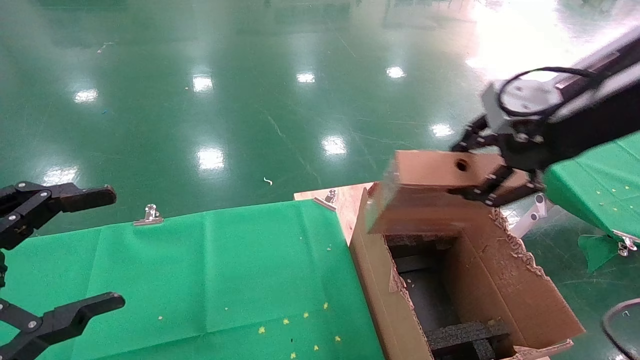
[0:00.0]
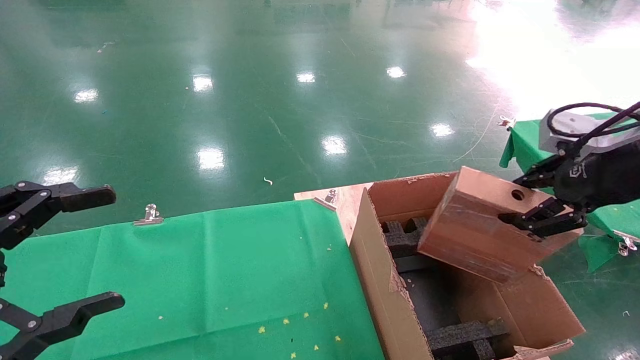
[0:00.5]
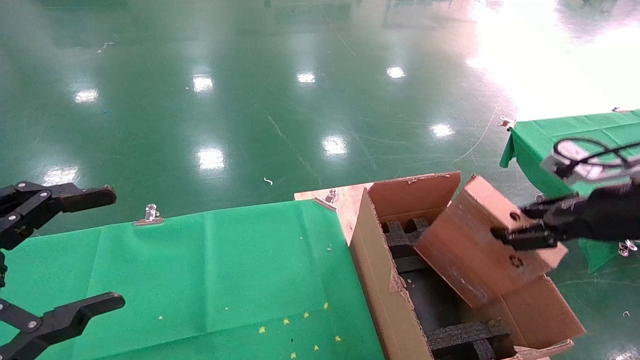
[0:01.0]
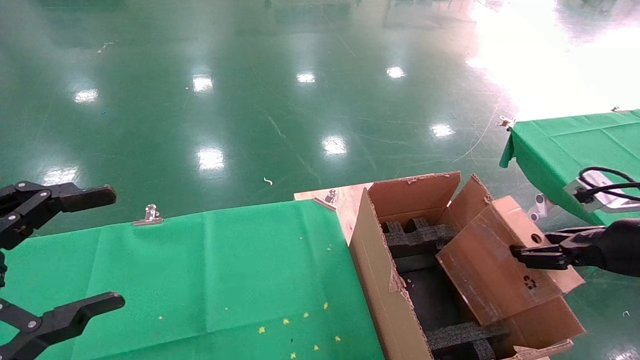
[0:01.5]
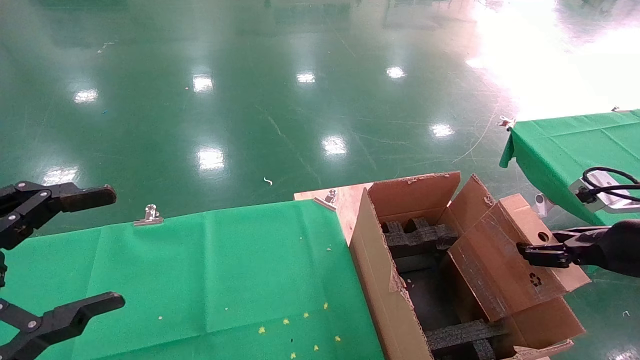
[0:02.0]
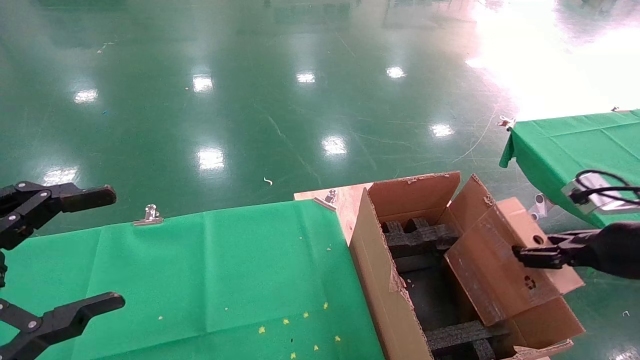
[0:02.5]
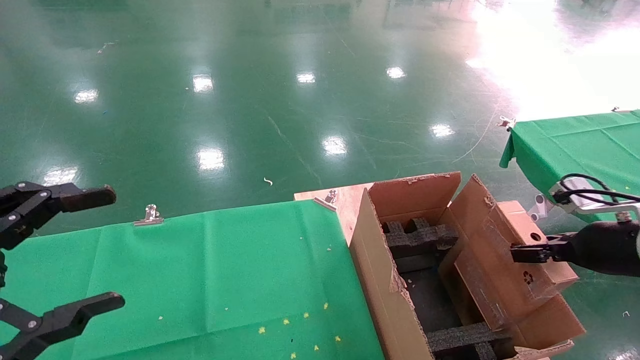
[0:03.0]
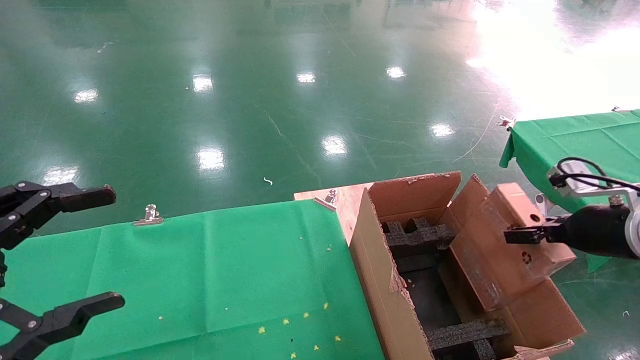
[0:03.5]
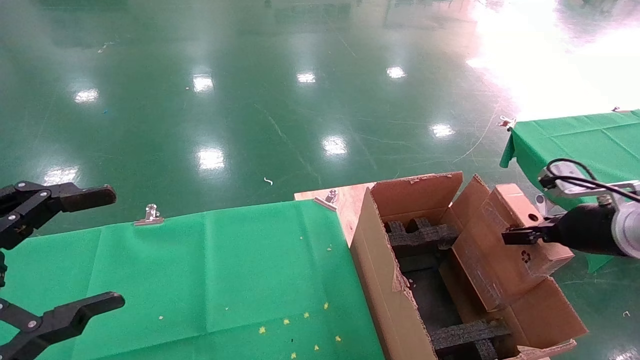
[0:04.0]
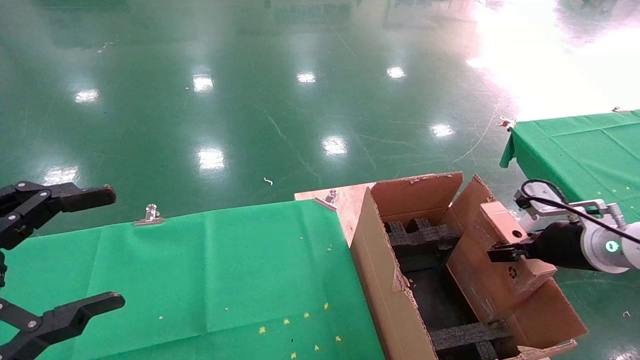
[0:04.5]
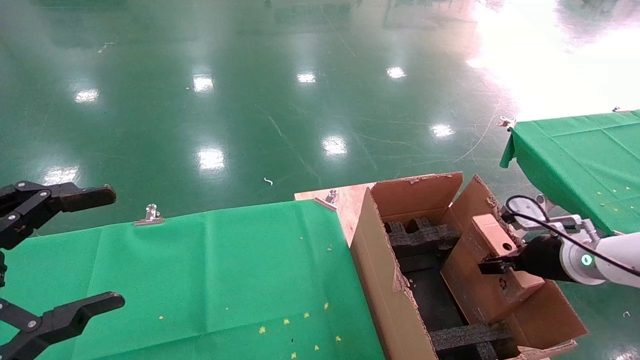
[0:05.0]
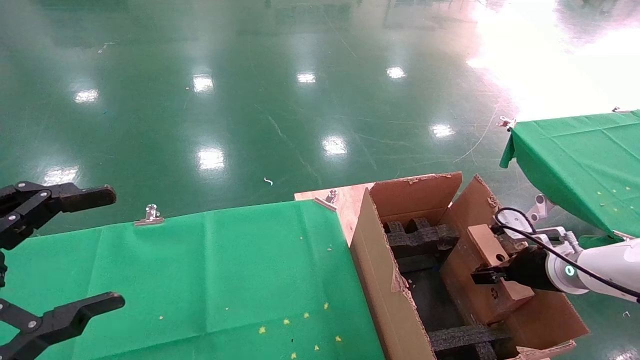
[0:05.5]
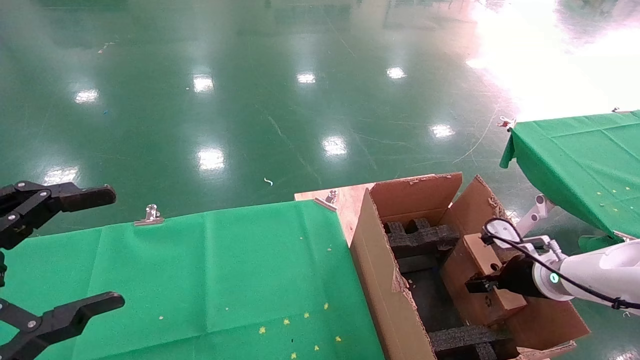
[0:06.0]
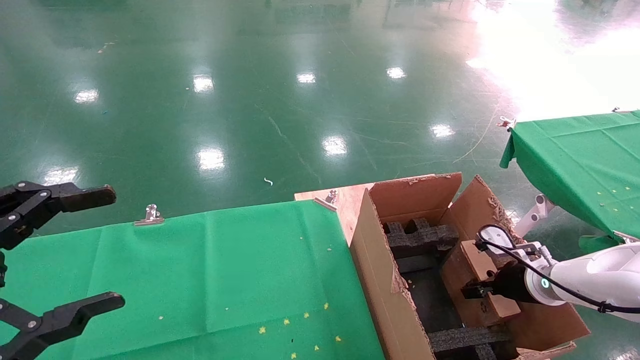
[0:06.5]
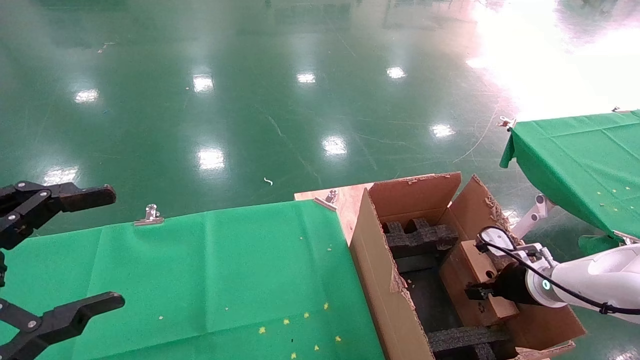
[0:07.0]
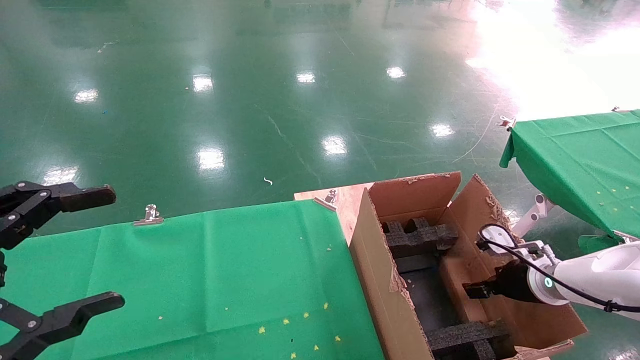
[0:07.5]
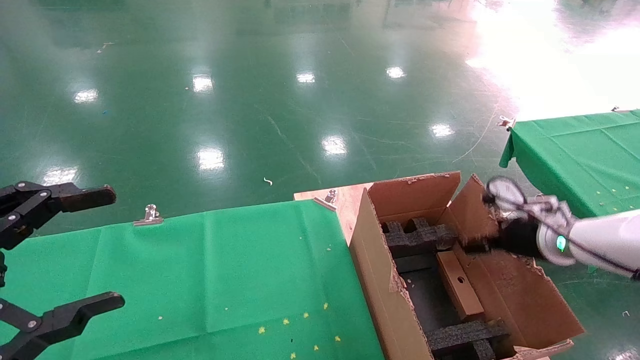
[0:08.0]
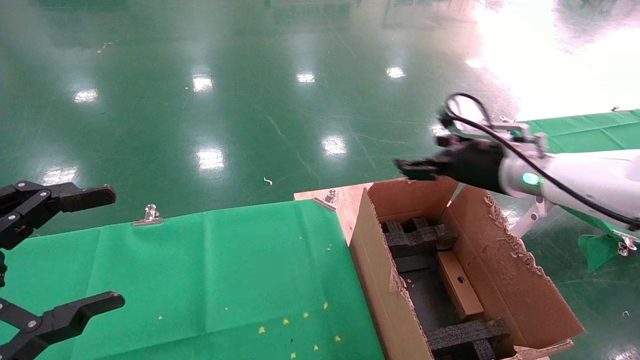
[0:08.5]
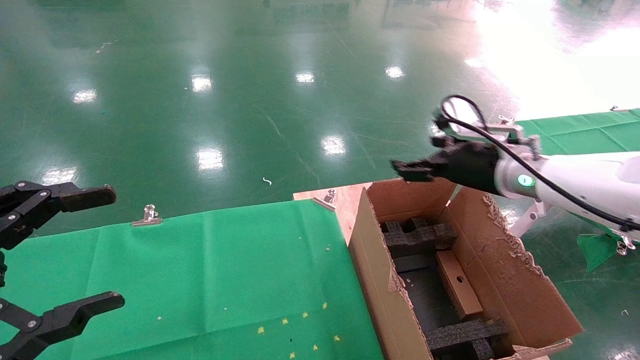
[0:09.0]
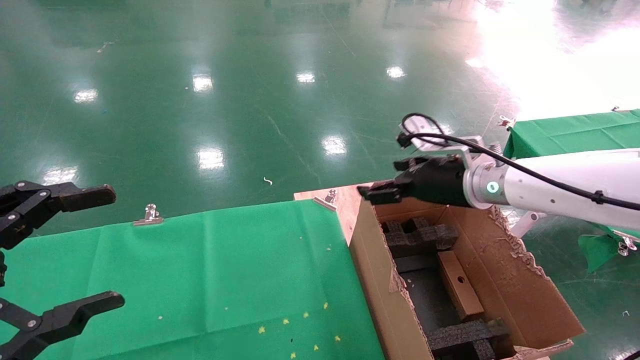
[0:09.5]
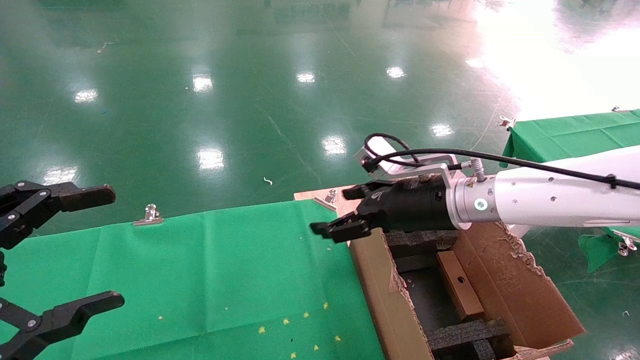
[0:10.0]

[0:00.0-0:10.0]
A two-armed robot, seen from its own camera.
Task of the whole recording: using a robotic arm to pick up a cardboard box and palace it the carton.
Step, 0:00.0 to 0:08.0: Place the mouse and the power cord paper box into the container.
0:00.0 to 0:02.0: The right gripper is displaced downward and to the right by approximately 20 cm.
0:02.0 to 0:04.0: The right gripper travels forward by approximately 5 cm.
0:04.0 to 0:06.0: The right gripper moves downward and forward, roughly 15 cm.
0:06.0 to 0:08.0: The right gripper heads upward, covering some 10 cm, and opens its fingers.
0:08.0 to 0:10.0: The right gripper heads to the left and upward, covering some 20 cm.

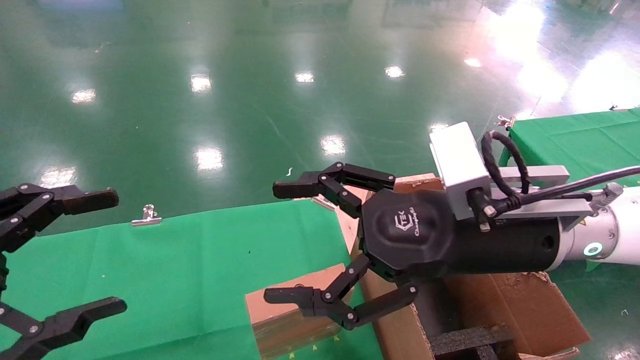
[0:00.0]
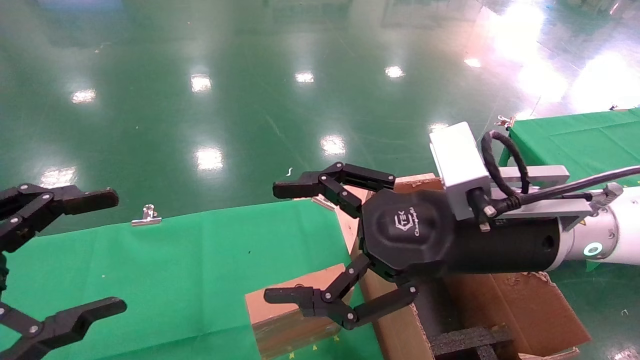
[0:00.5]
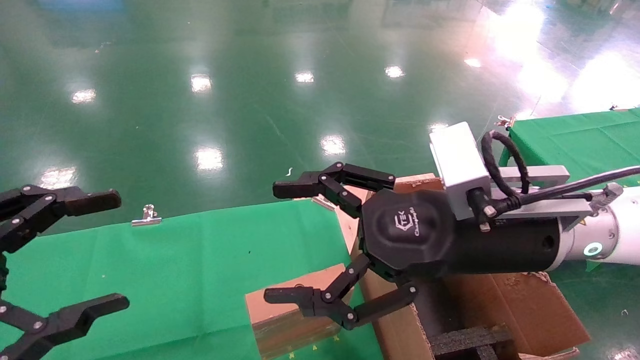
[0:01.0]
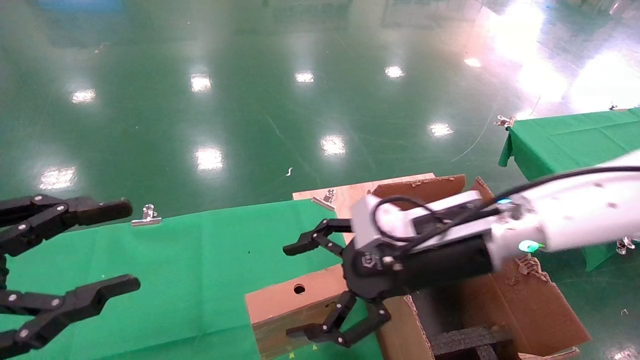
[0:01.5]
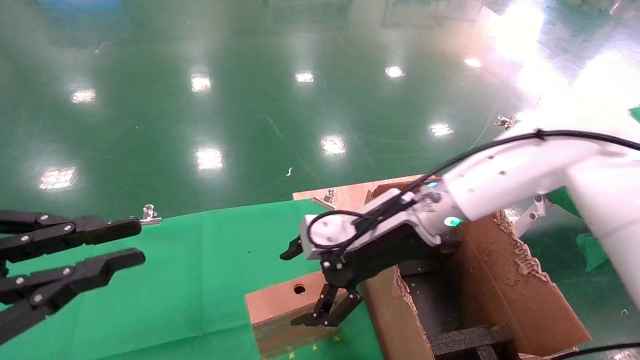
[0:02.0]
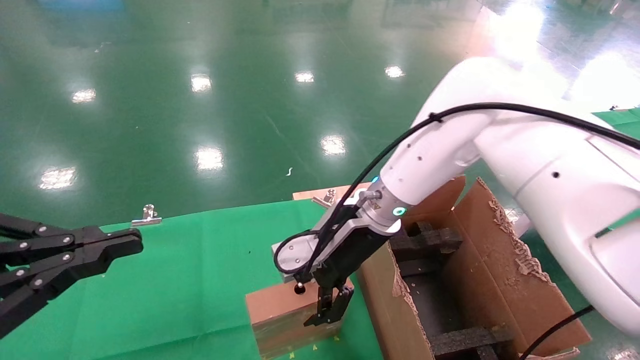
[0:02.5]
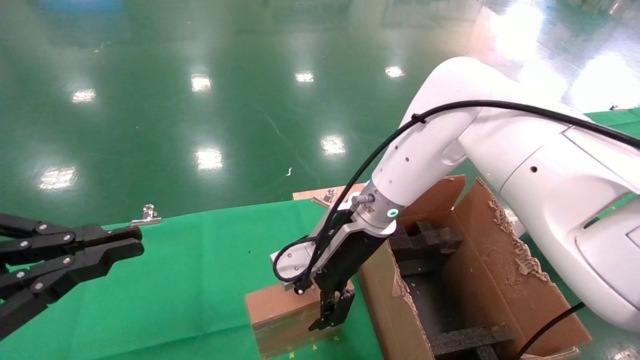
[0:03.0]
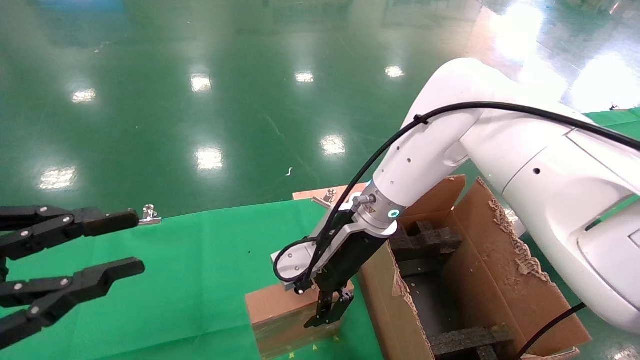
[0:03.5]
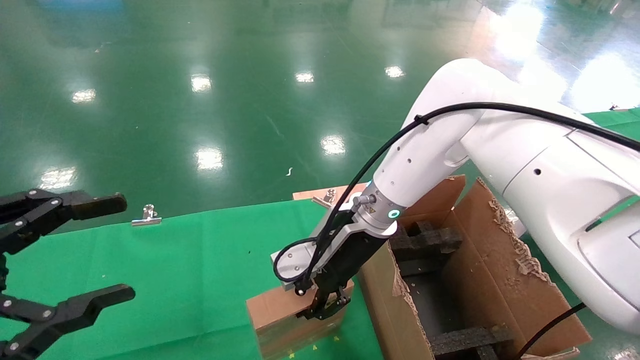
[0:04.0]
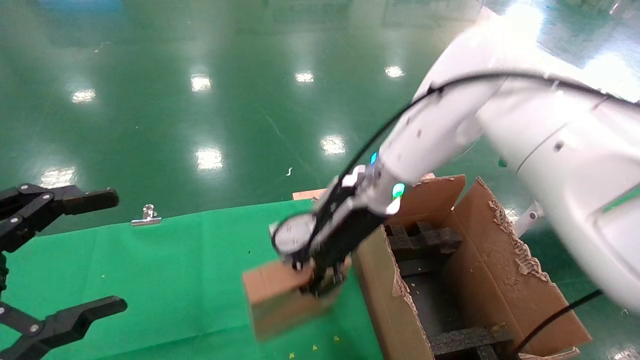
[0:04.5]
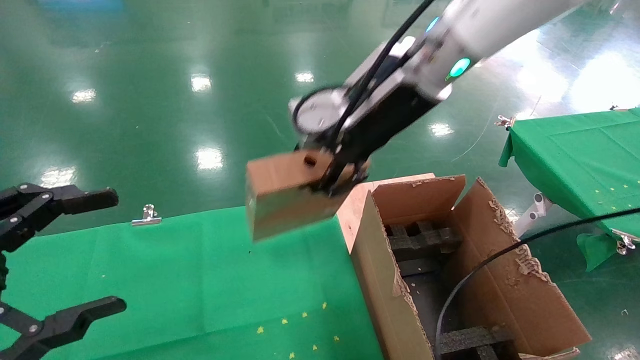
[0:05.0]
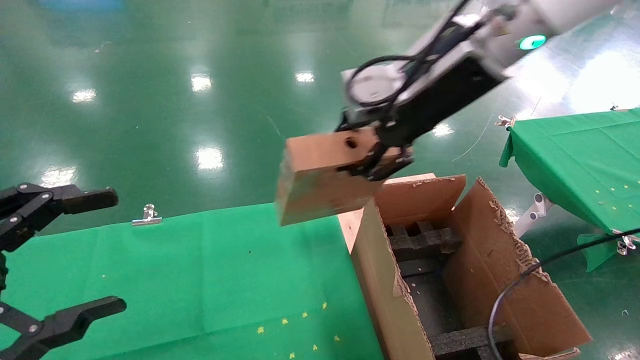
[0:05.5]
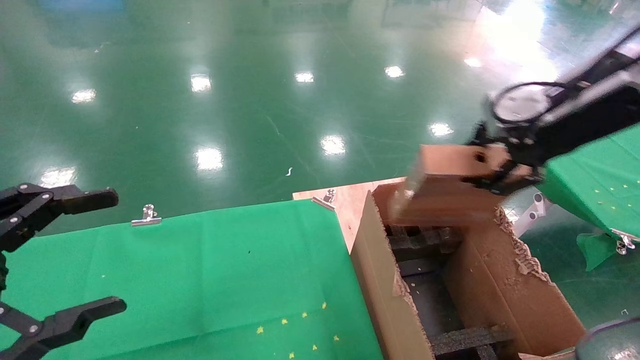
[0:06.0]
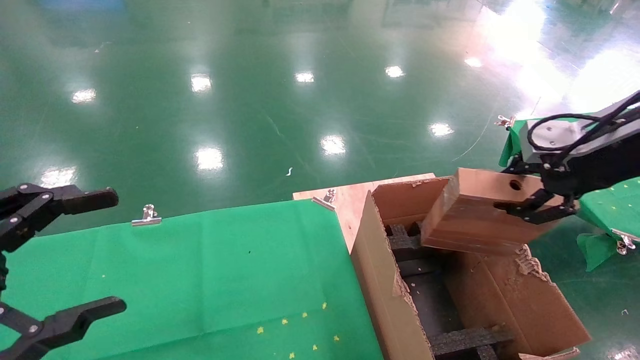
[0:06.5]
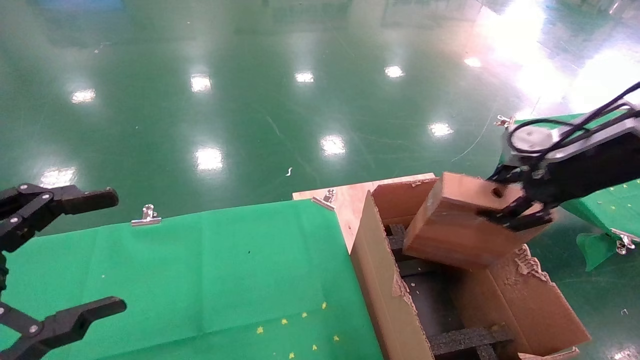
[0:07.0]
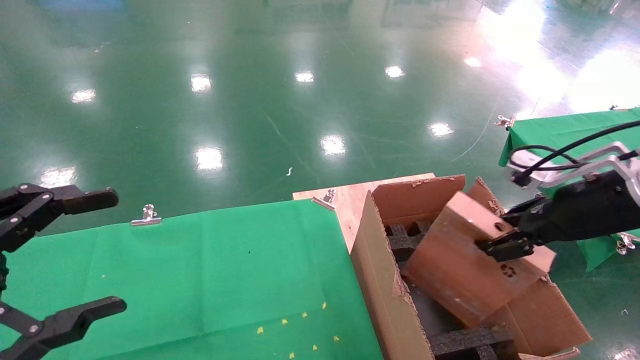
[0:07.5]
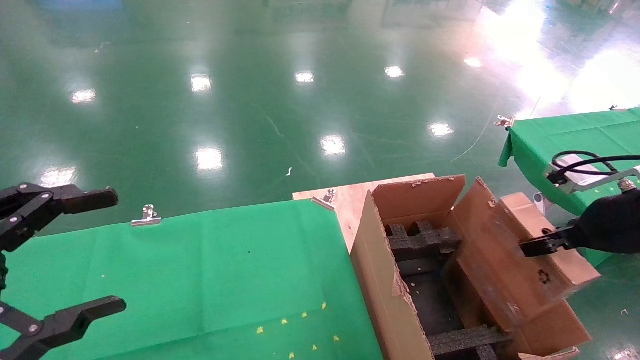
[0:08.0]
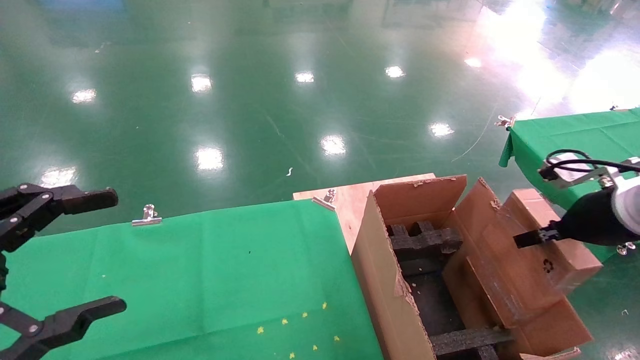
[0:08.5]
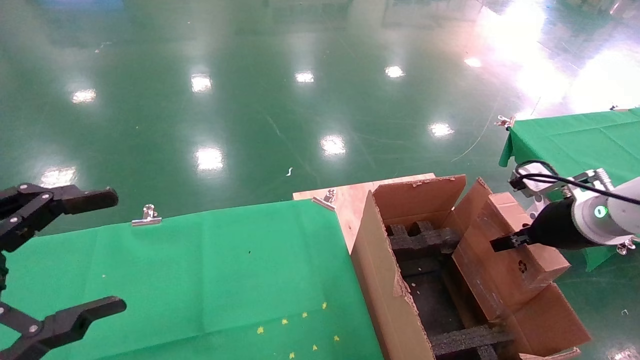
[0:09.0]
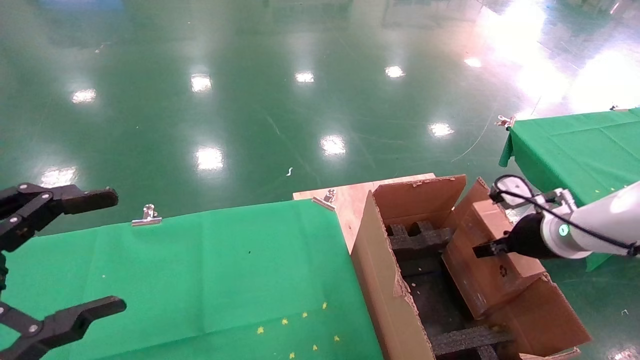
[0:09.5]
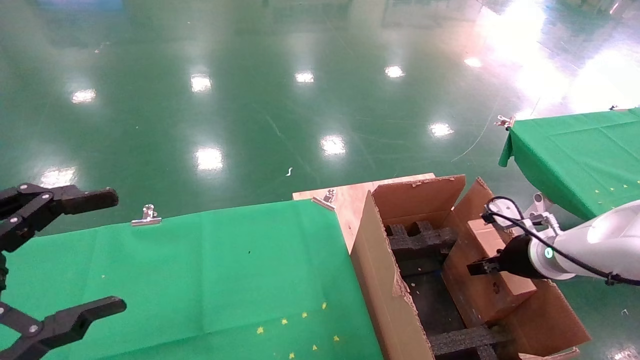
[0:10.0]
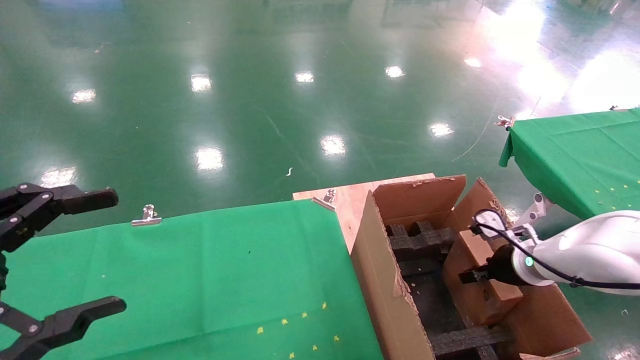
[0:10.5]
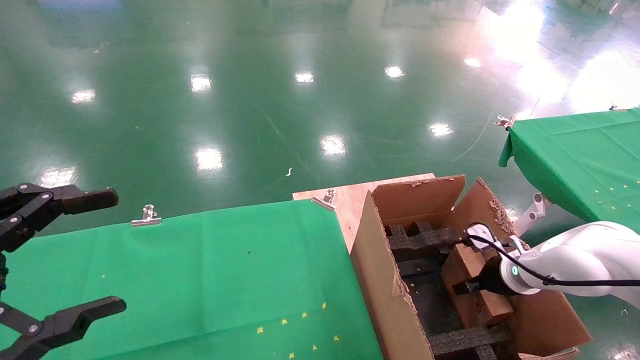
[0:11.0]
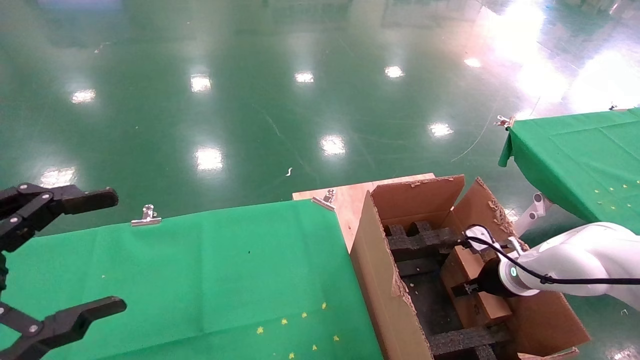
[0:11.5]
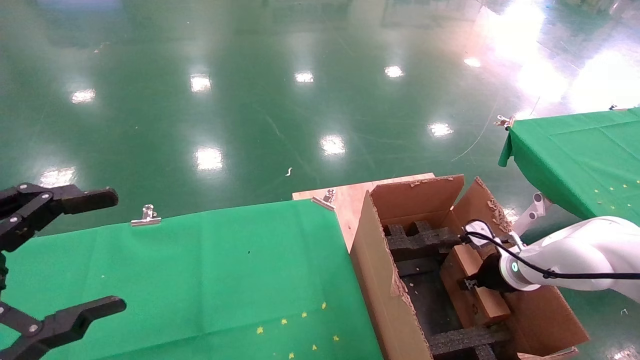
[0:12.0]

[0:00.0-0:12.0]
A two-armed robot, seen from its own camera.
Task of the whole recording: using a robotic arm to pick up a cardboard box and palace it the carton.
Step, 0:01.5 to 0:04.0: Pick up the mouse and the power cord paper box.
0:00.0 to 0:02.0: The left gripper closes up; the right gripper is displaced forward by about 10 cm.
0:02.0 to 0:04.0: The left gripper opens up, while the right gripper shifts by roughly 5 cm, and closes up.
0:04.0 to 0:06.0: The right gripper moves to the right, upward and backward, roughly 30 cm.
0:06.0 to 0:08.0: The right gripper heads downward and to the right, covering some 15 cm.
0:08.0 to 0:10.0: The right gripper goes some 15 cm downward and forward.
0:10.0 to 0:12.0: The right gripper heads downward, covering some 5 cm.
